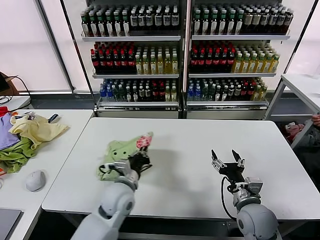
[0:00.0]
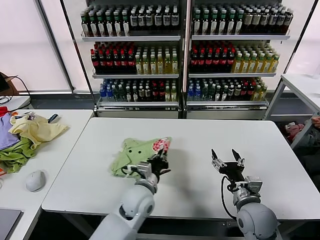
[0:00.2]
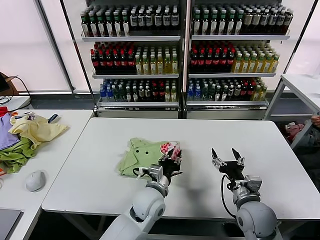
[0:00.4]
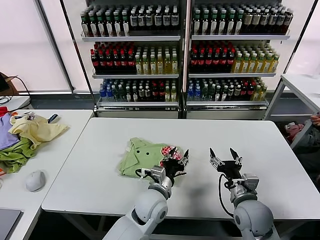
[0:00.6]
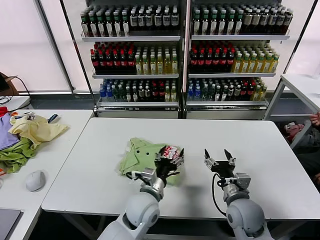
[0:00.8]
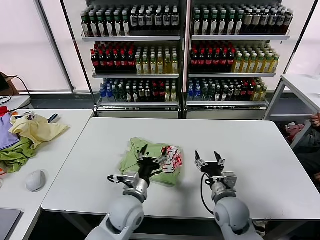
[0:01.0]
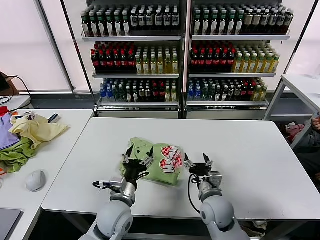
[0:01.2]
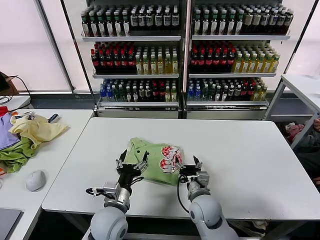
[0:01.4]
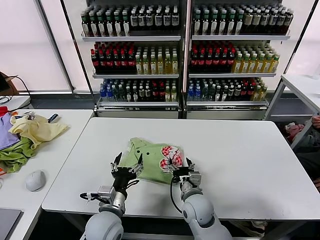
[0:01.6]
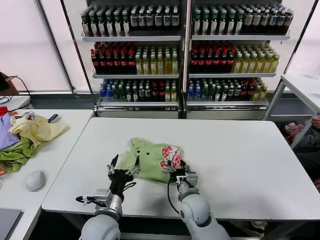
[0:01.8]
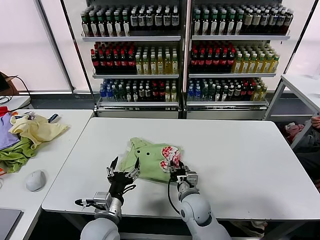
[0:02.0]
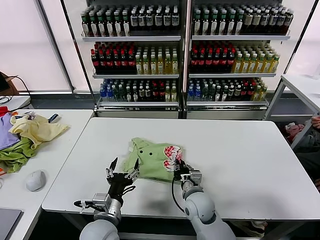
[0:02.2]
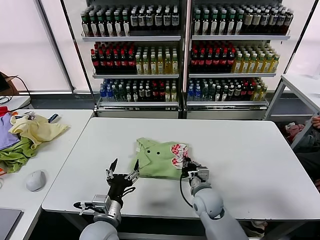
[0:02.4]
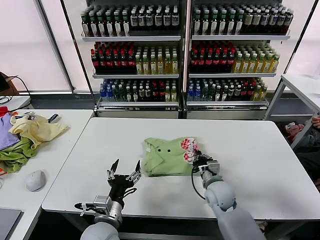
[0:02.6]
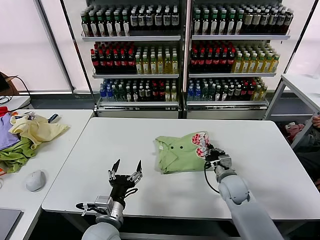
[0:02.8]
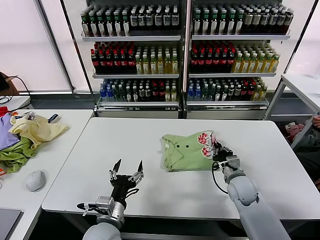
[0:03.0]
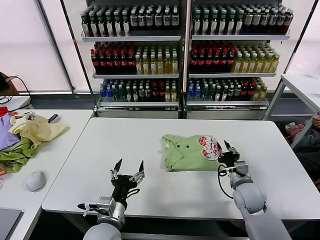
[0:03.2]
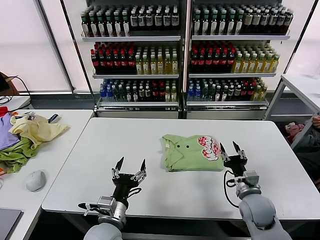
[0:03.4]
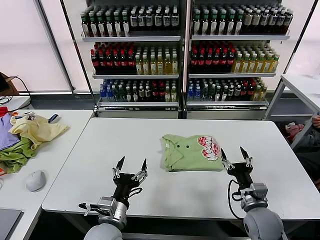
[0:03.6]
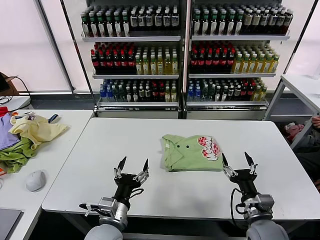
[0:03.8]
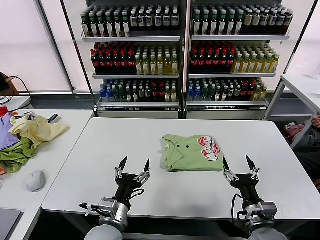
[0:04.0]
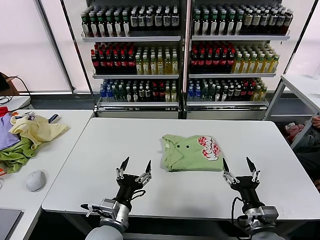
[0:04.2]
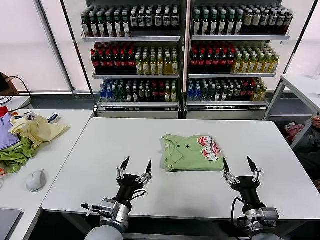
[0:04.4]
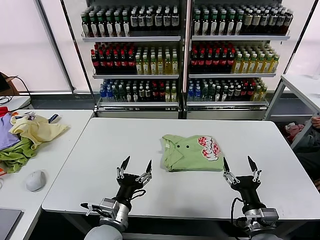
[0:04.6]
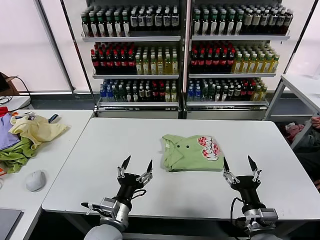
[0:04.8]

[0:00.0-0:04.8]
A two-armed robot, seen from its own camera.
Task of the whole recording: fold and organize the clothes.
Step, 0:00.6 to 0:03.0: Drag the clothes to the center of the table.
0:00.0 to 0:01.6: The left gripper shifts about 5 cm backward, goes to the right and returns, about 10 cm each way, and opens; the right gripper is displaced to the left by about 15 cm.
0:01.6 to 0:03.2: The right gripper goes about 15 cm to the right, and closes.
0:03.2 to 0:04.8: The right gripper is displaced backward by about 15 cm, and opens its fingers.
